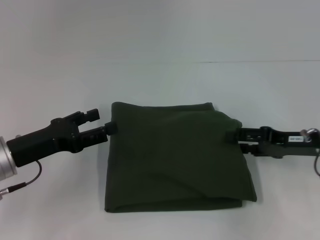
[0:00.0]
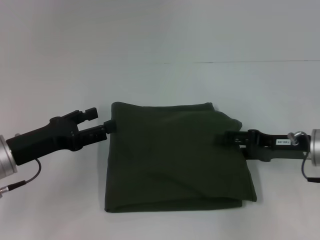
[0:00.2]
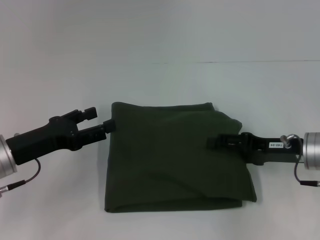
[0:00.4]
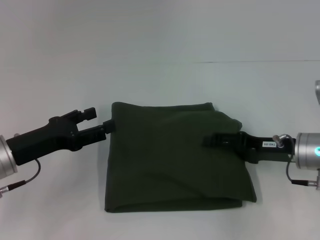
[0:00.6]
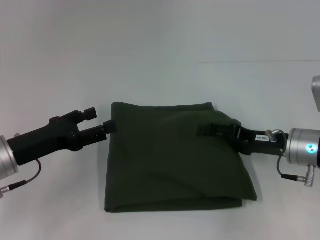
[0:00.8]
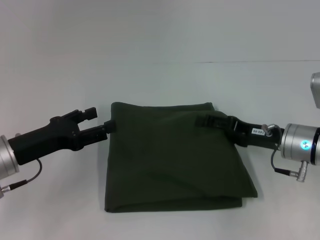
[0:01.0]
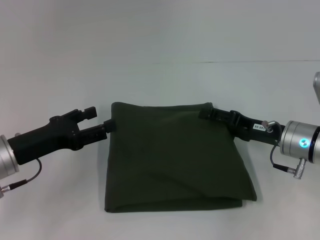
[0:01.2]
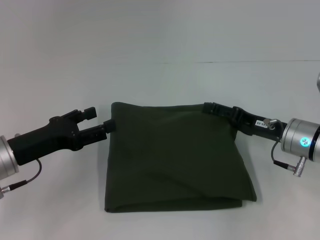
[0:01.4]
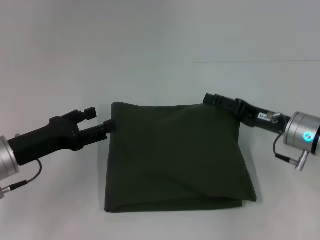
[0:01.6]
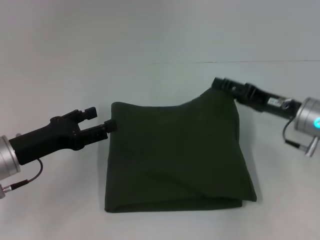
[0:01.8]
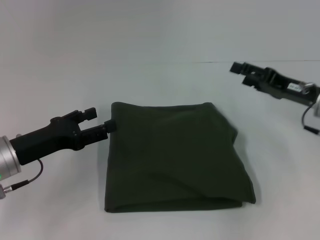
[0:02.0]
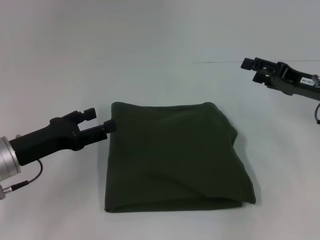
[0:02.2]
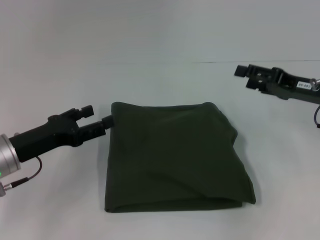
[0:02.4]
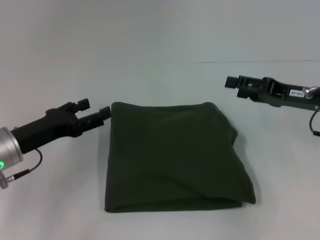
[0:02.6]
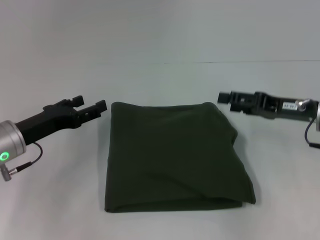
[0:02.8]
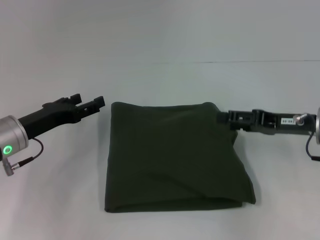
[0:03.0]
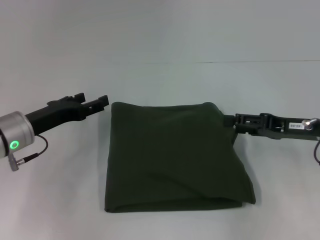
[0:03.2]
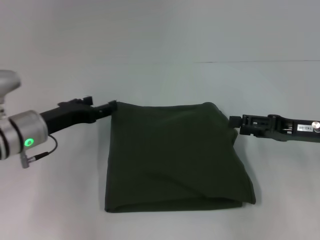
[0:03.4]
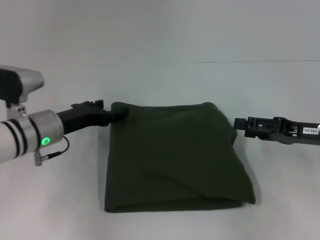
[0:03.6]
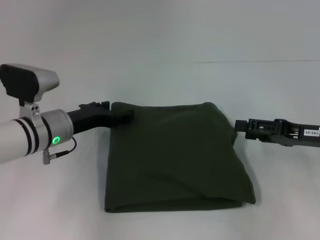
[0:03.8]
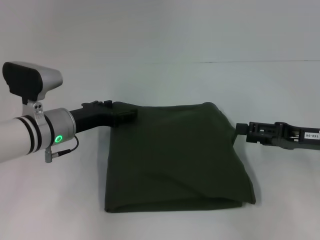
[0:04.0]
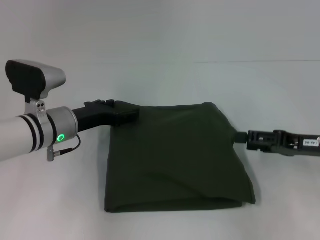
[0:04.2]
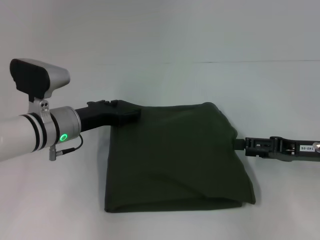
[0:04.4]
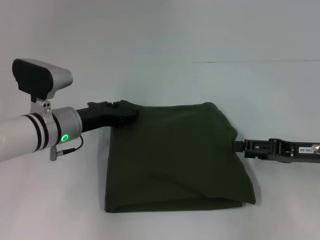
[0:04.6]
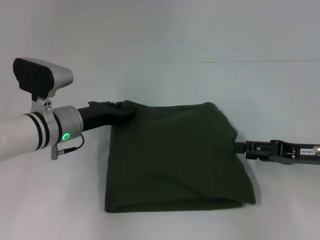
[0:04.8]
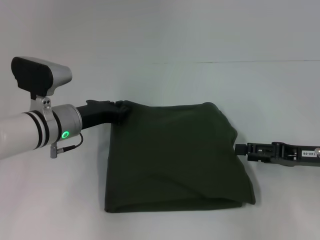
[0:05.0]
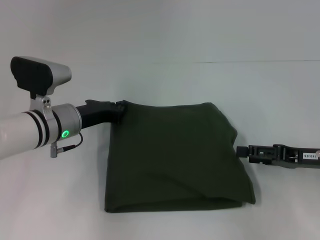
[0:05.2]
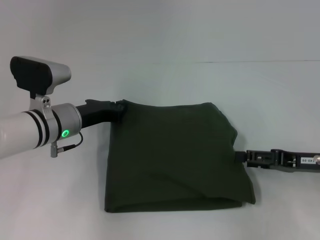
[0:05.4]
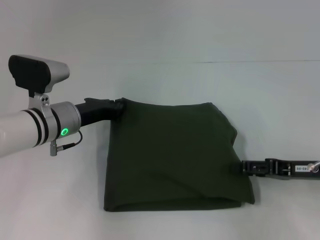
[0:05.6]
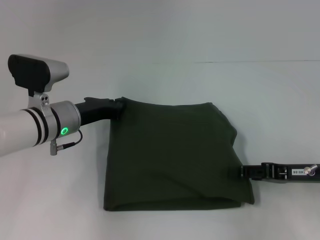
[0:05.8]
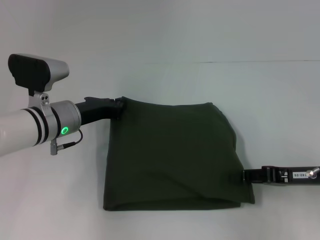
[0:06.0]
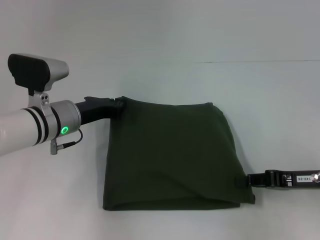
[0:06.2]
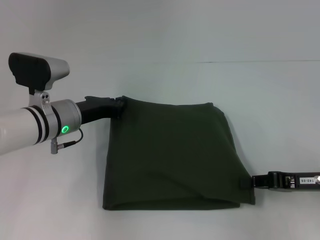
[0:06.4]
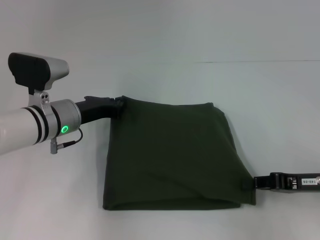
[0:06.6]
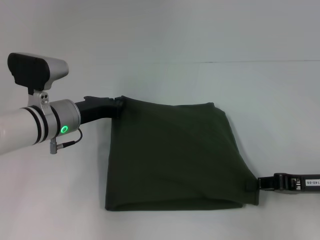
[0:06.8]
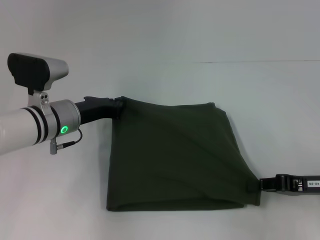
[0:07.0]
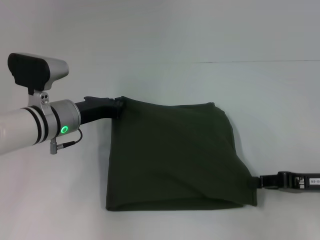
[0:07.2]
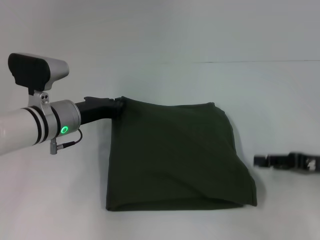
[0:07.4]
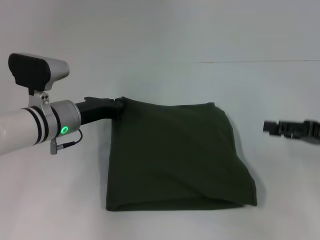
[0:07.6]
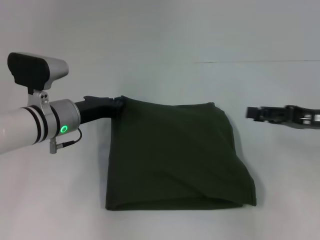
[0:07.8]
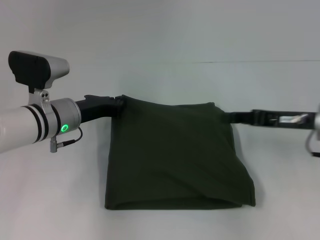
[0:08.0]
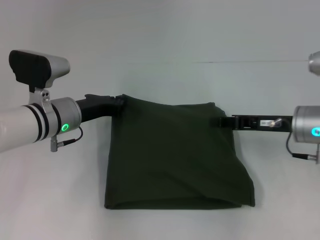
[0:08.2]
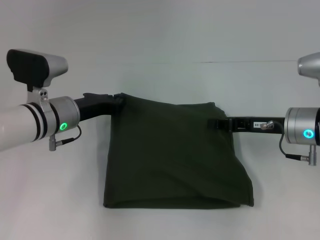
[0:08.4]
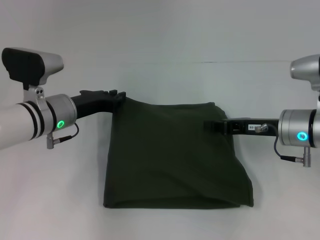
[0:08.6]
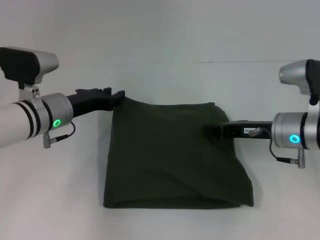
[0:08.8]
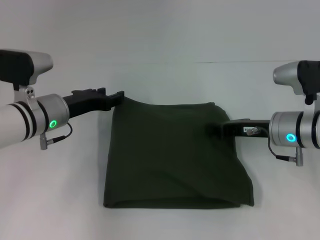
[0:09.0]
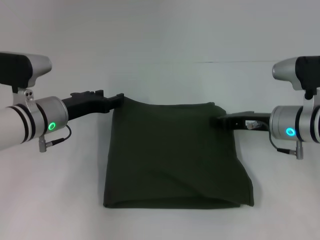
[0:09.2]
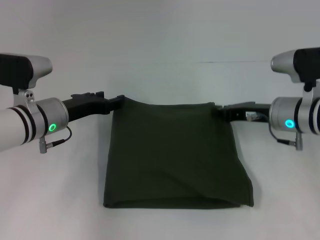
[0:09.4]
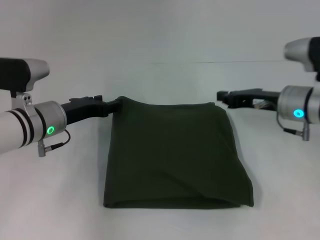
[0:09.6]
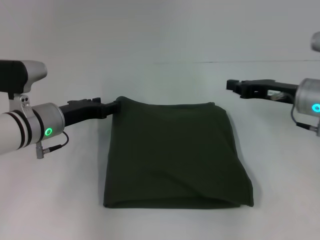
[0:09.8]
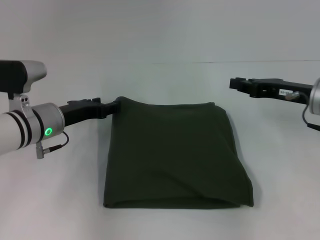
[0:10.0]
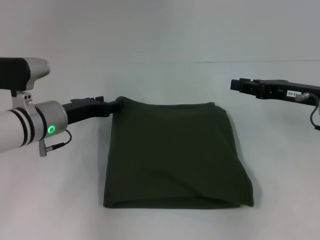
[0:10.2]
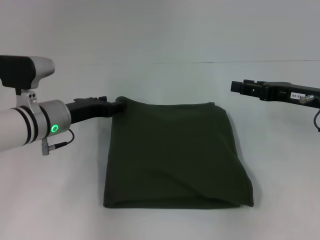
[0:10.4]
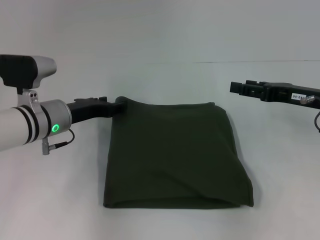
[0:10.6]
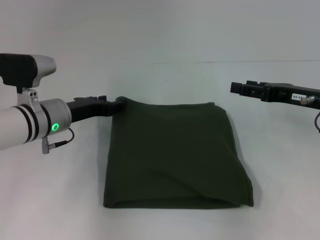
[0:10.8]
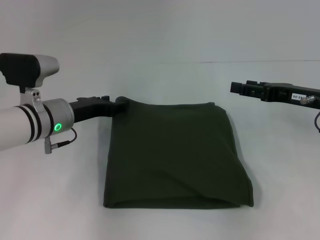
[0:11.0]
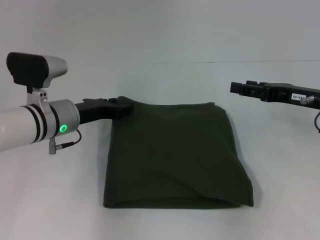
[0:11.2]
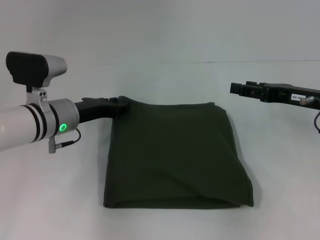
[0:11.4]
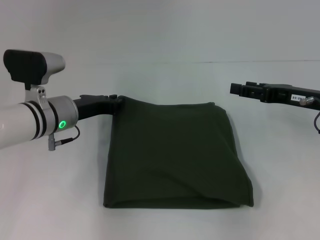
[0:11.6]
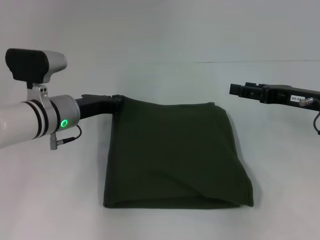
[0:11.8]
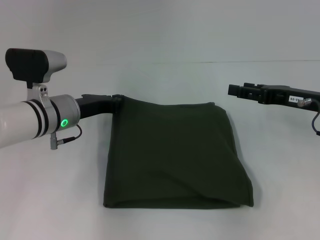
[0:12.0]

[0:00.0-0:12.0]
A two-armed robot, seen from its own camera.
0:00.0 to 0:01.6: The right gripper changes place by roughly 5 cm.
0:03.0 to 0:04.4: The left gripper heads to the right, covering some 5 cm.
0:04.4 to 0:06.0: The left gripper closes its fingers. The right gripper closes its fingers.
0:06.0 to 0:07.6: The right gripper moves roughly 5 cm.
0:07.6 to 0:09.0: The right gripper heads to the left and forward, covering about 15 cm, while the left gripper opens.
0:09.0 to 0:10.4: The right gripper heads to the right and upward, covering some 10 cm.
0:10.4 to 0:12.0: The left gripper closes. The right gripper opens its fingers.

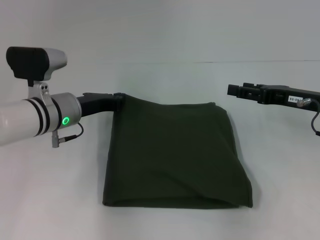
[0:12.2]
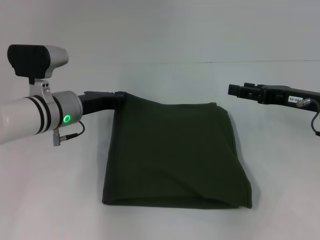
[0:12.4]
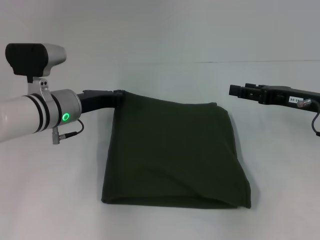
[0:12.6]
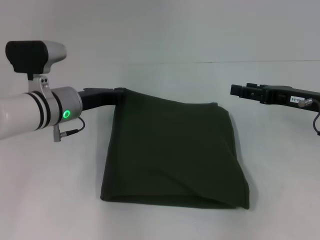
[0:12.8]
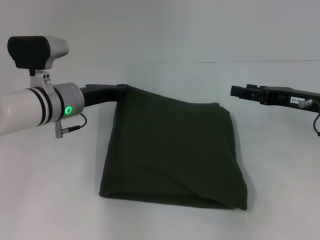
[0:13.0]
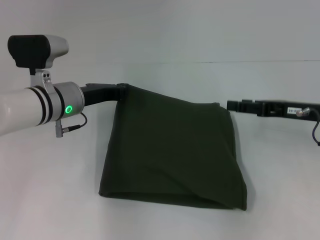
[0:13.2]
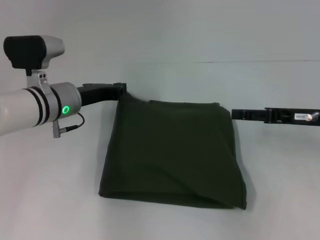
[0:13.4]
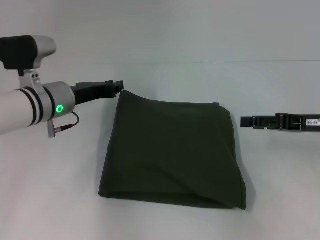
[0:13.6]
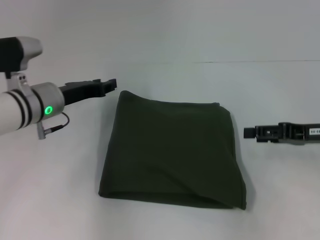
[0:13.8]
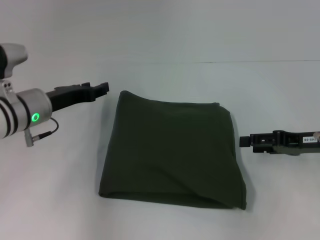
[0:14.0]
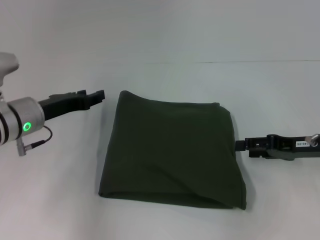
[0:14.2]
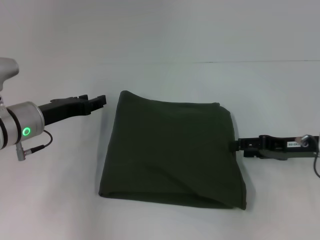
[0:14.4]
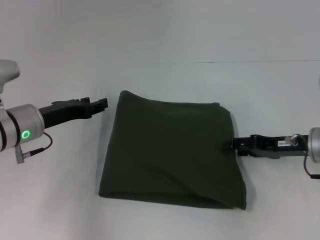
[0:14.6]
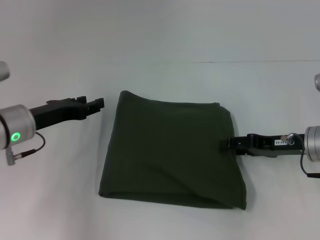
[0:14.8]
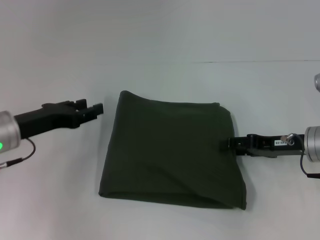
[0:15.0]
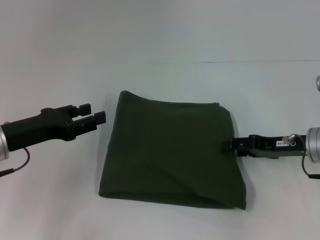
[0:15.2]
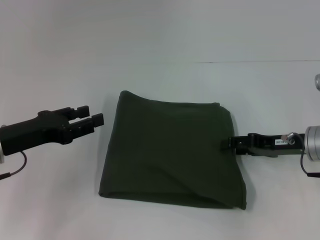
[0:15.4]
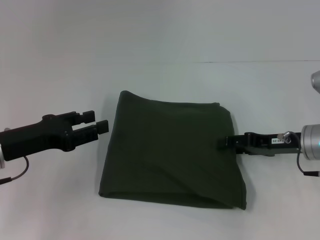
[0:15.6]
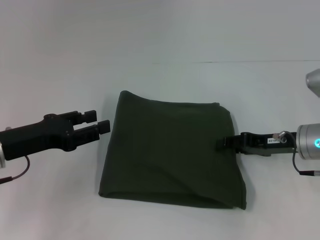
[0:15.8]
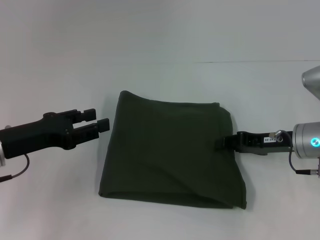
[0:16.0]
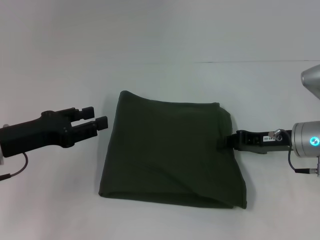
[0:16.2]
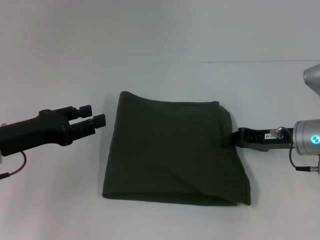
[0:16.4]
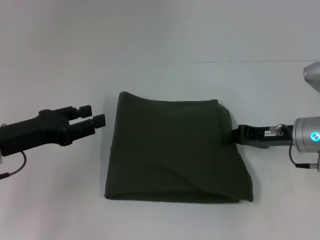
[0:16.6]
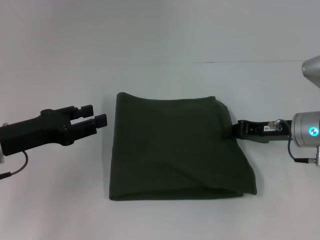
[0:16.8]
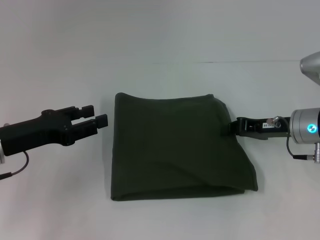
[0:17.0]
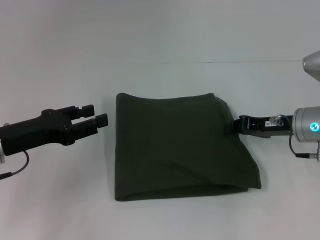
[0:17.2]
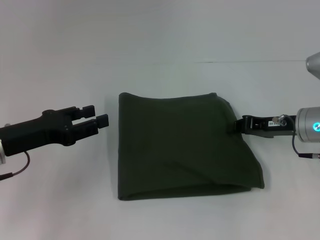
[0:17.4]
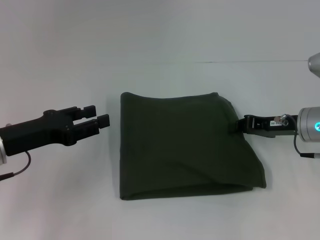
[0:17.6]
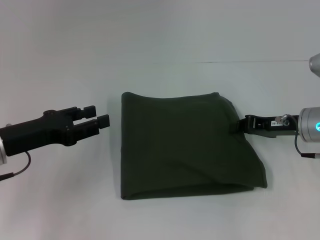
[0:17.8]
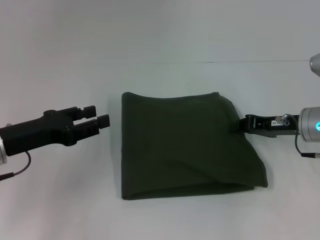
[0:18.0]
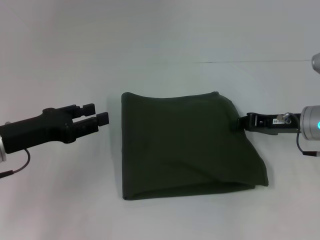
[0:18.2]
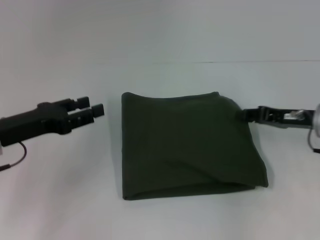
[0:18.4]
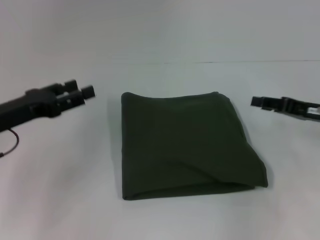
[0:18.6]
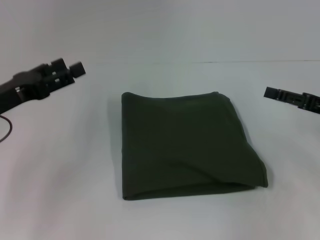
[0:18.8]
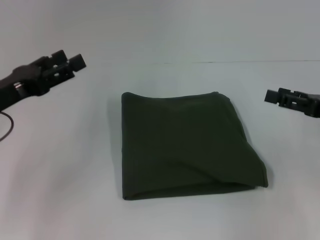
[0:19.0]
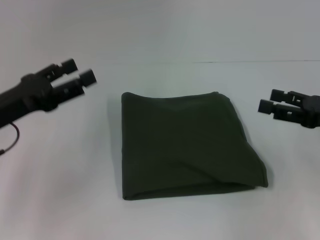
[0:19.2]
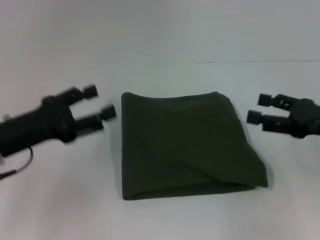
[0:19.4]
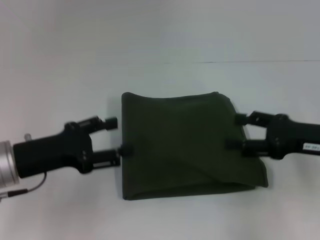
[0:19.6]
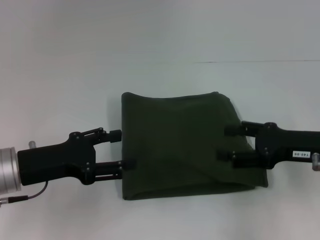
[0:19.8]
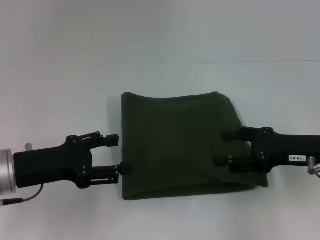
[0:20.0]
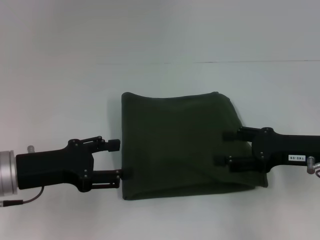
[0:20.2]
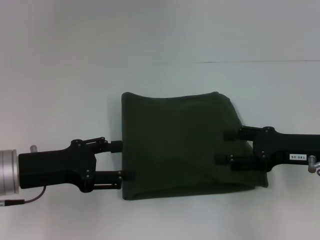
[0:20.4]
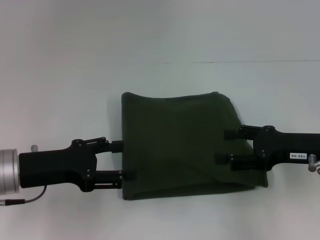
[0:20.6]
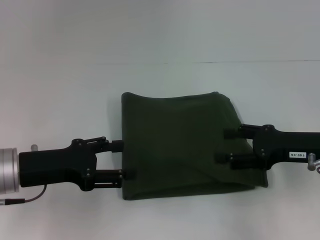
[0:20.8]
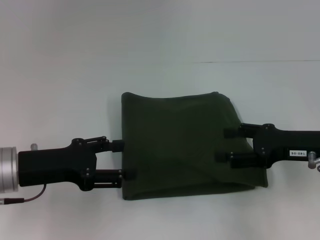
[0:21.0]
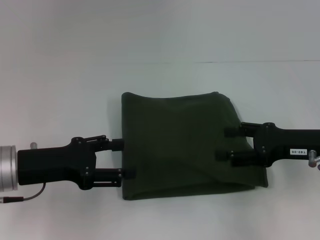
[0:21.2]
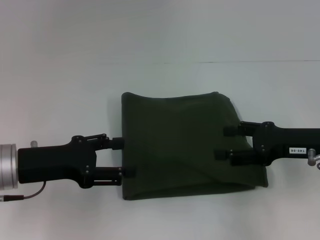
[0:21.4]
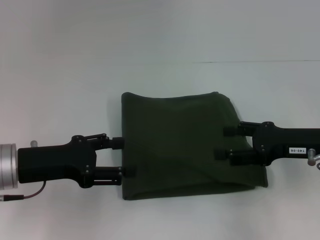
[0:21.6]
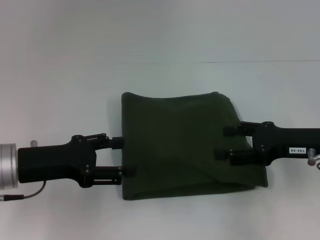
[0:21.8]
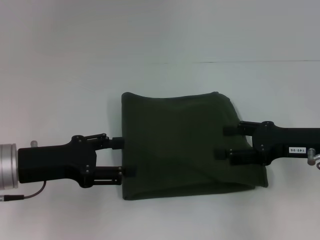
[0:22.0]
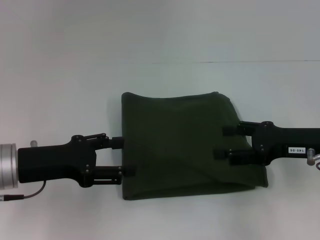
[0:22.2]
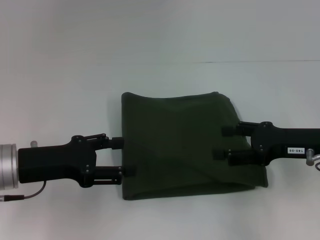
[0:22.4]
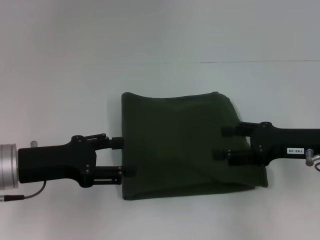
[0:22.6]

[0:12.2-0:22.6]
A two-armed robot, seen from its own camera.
0:12.2 to 0:13.6: The grippers stay close to where they were, moving slightly.
0:13.6 to 0:15.2: The left gripper heads backward and to the left, covering roughly 10 cm, and opens its fingers, while the right gripper ends up approximately 5 cm from where it was.
0:15.2 to 0:16.6: The right gripper closes.
0:16.6 to 0:18.2: The grippers move only a little.
0:18.2 to 0:19.6: The right gripper is displaced backward by roughly 5 cm, and opens its fingers.
0:19.6 to 0:21.2: The grippers make only small movements.
0:21.2 to 0:22.6: Both grippers stay about where they are.
